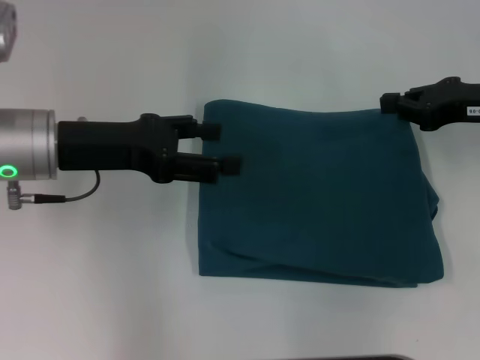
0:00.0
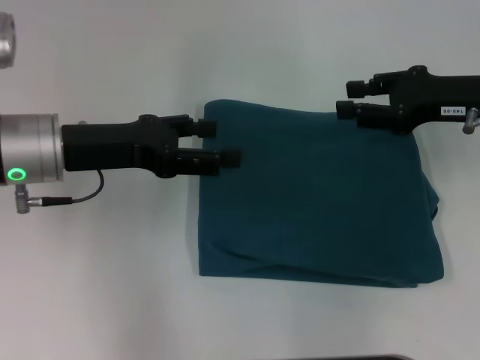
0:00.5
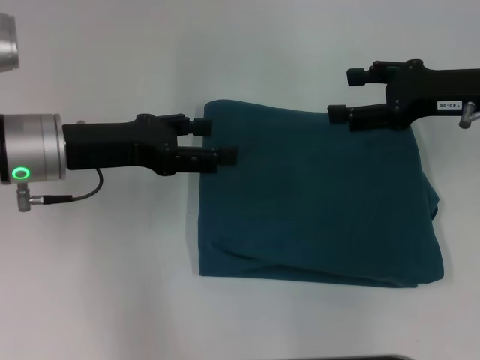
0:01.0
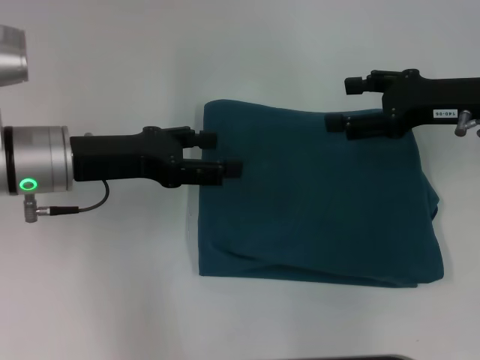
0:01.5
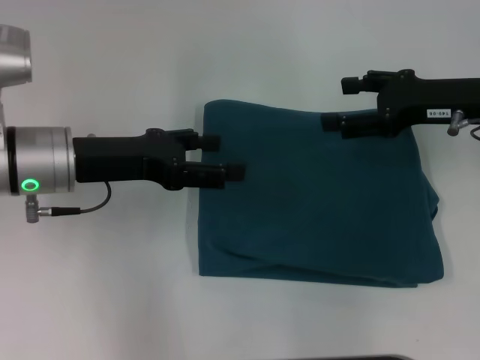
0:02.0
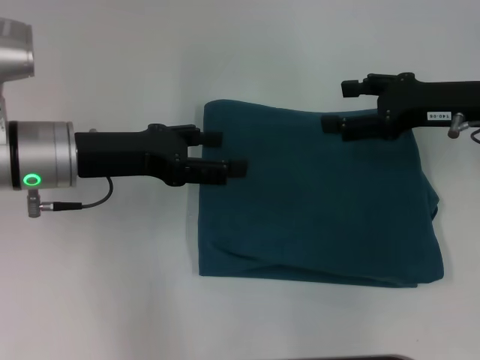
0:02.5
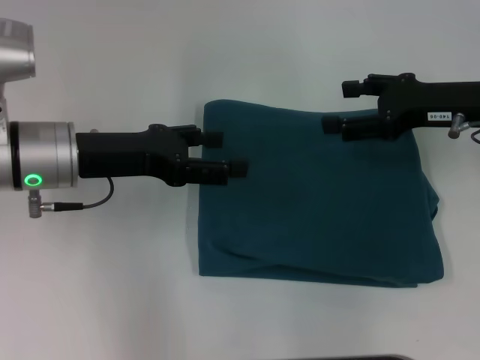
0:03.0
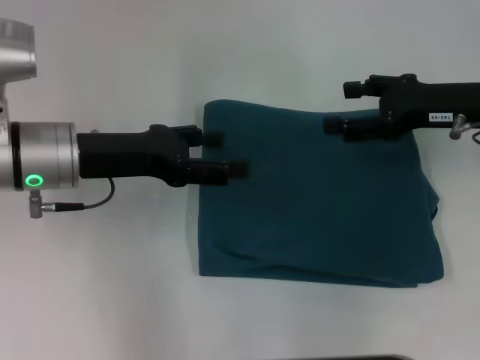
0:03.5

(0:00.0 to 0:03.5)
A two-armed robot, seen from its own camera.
0:00.0 - 0:02.0: The right gripper opens up.
0:02.0 - 0:03.5: Neither gripper changes place.
